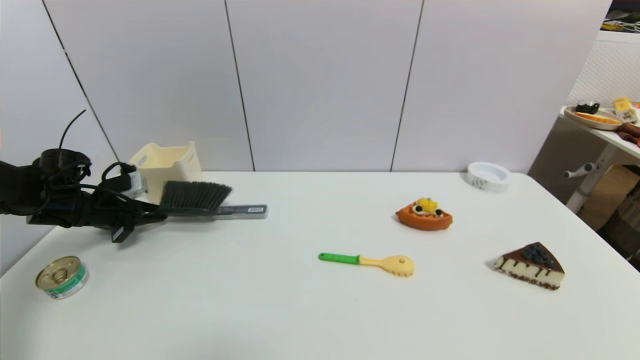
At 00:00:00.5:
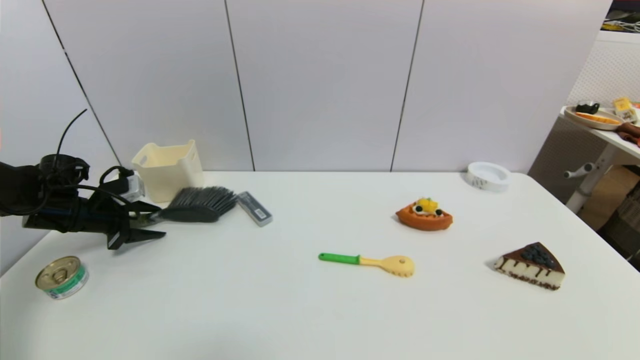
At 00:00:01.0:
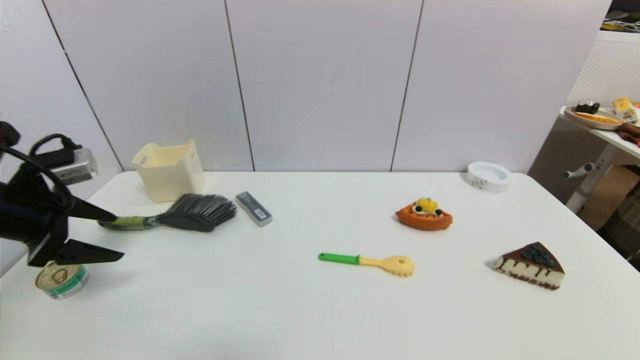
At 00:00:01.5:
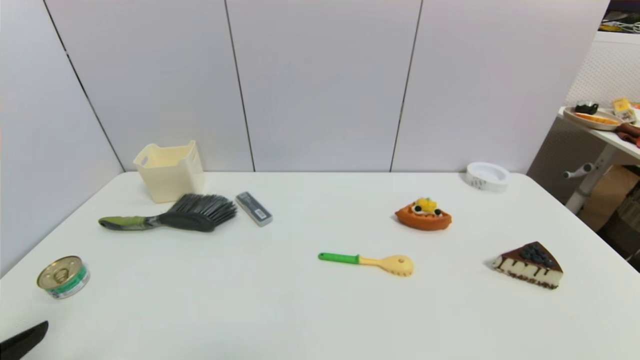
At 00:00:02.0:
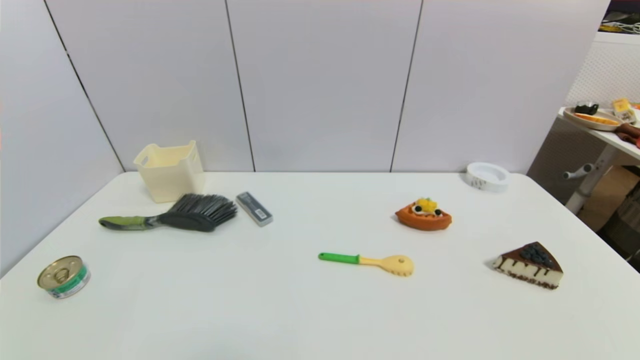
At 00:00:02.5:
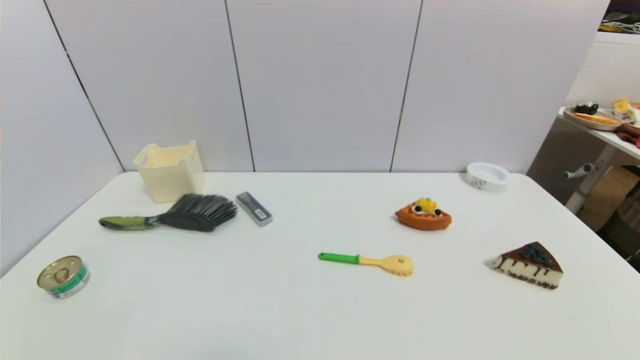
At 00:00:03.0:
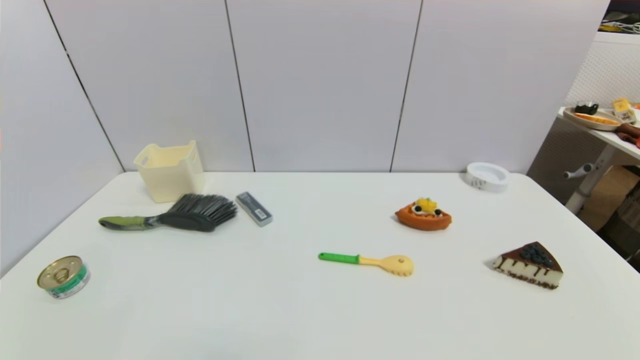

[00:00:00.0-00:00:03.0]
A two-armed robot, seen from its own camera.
Task of the whole recording: put the brush in the designated position.
00:00:00.0 to 00:00:01.5: The left gripper heads backward, covering roughly 35 cm, and opens up.
